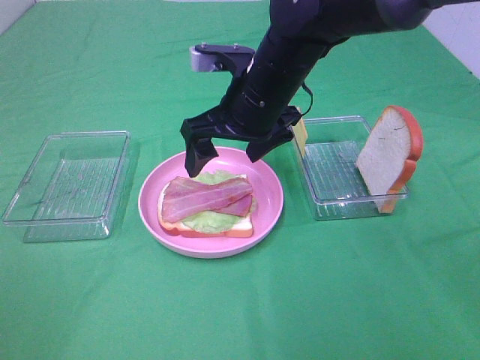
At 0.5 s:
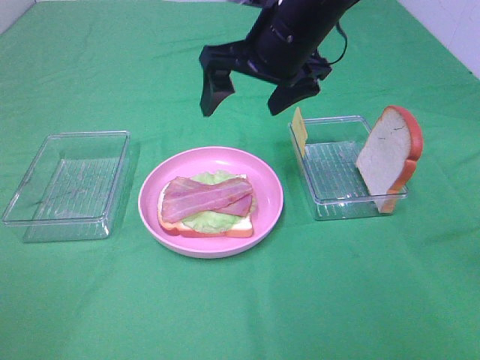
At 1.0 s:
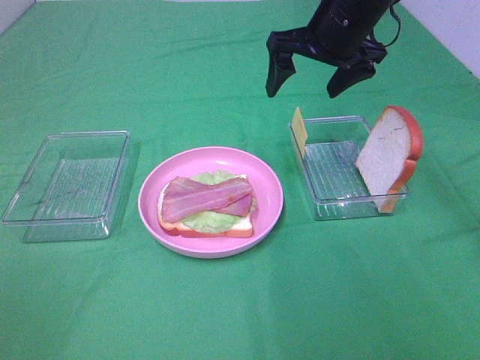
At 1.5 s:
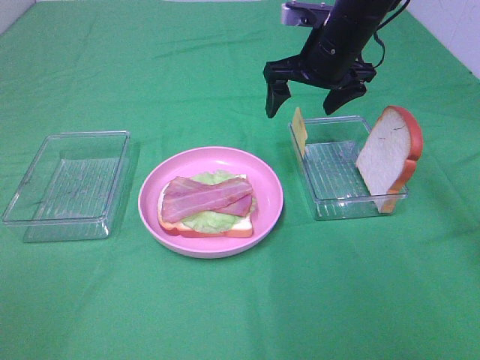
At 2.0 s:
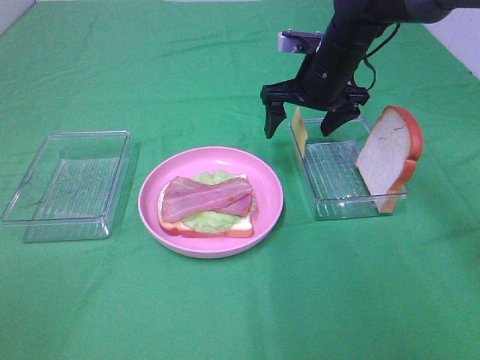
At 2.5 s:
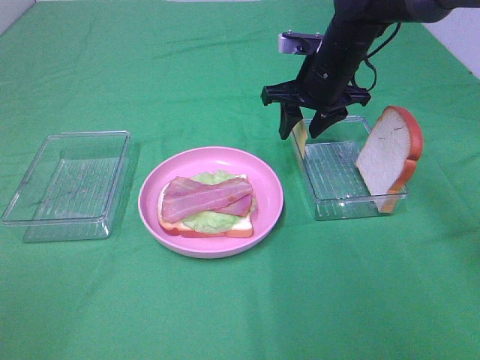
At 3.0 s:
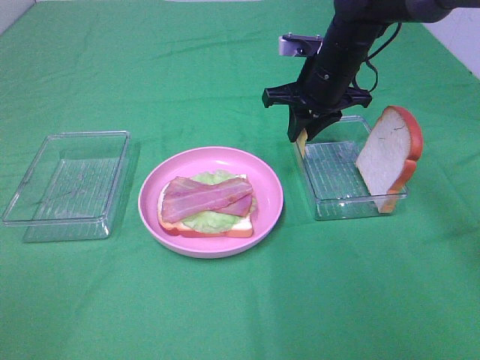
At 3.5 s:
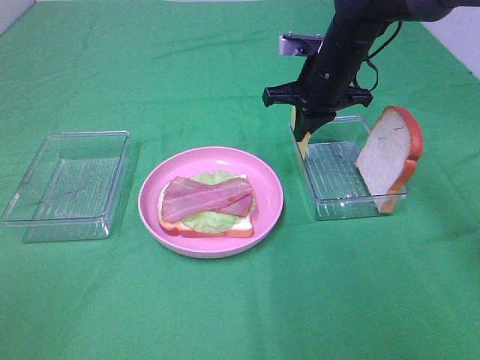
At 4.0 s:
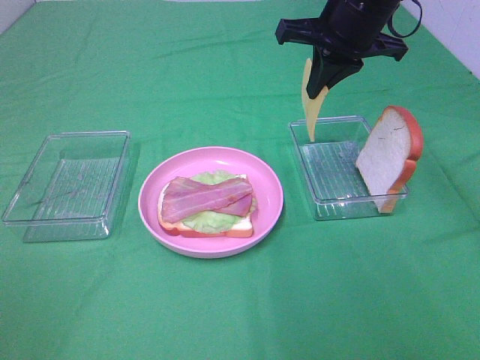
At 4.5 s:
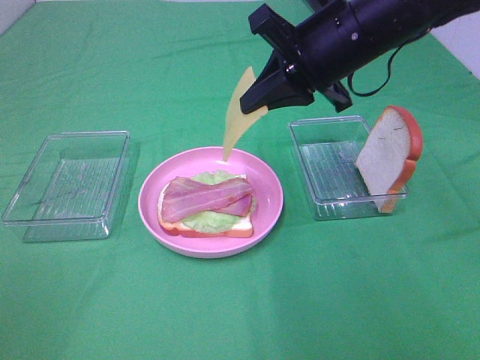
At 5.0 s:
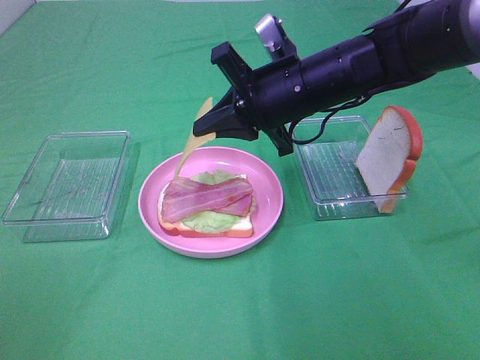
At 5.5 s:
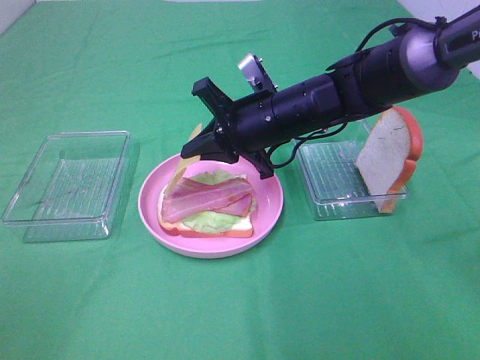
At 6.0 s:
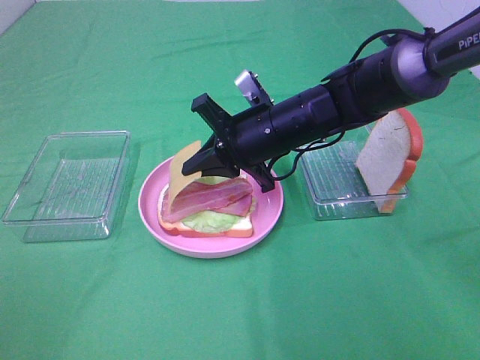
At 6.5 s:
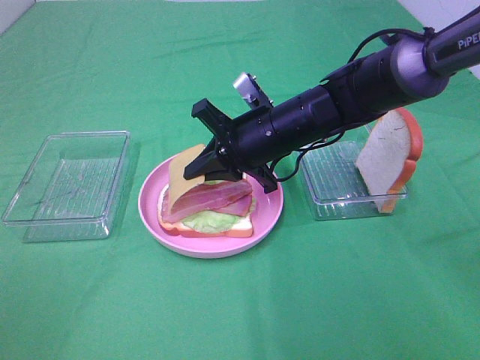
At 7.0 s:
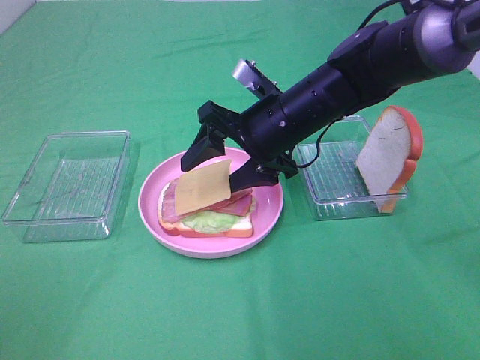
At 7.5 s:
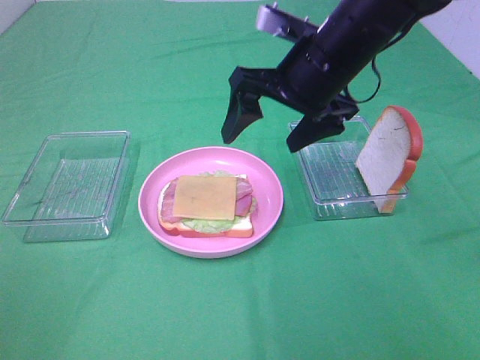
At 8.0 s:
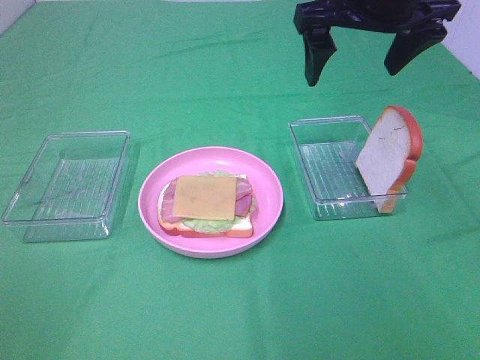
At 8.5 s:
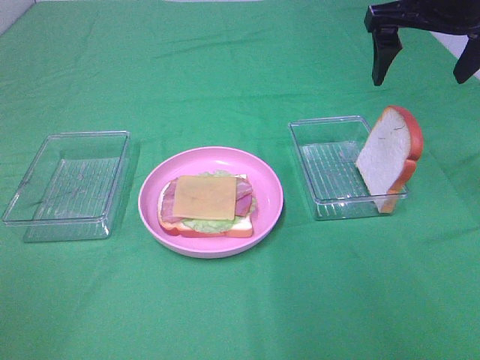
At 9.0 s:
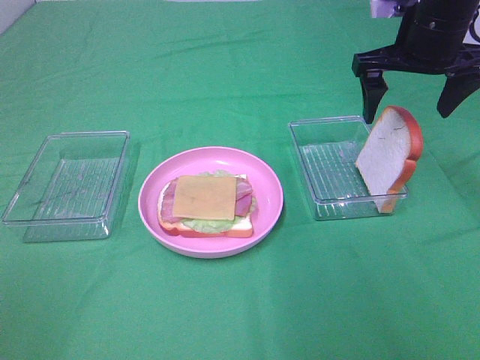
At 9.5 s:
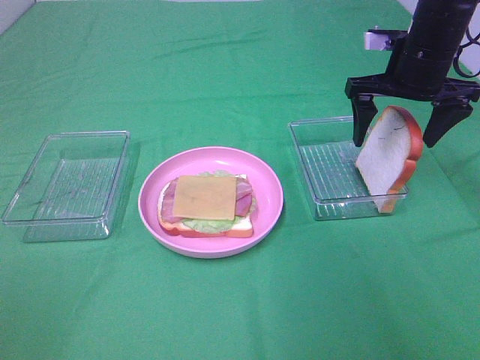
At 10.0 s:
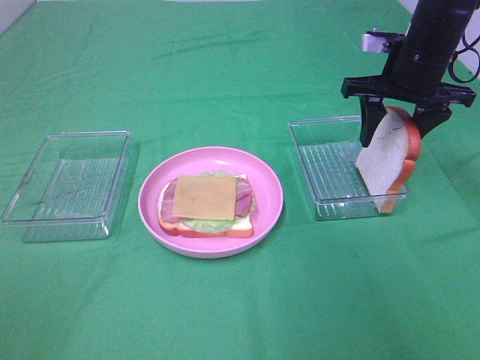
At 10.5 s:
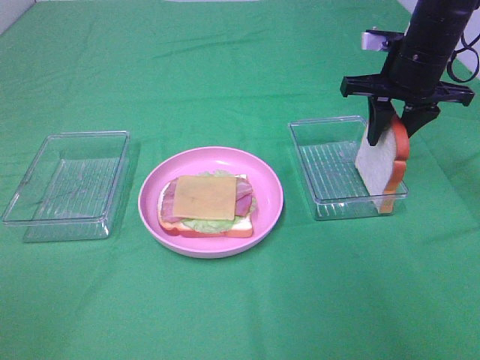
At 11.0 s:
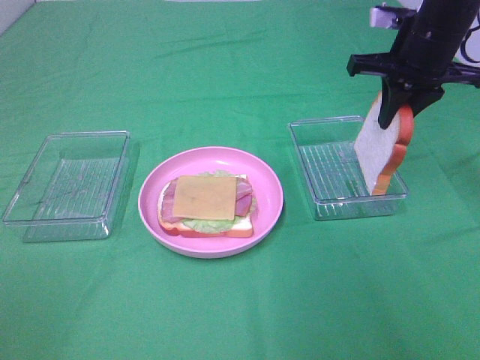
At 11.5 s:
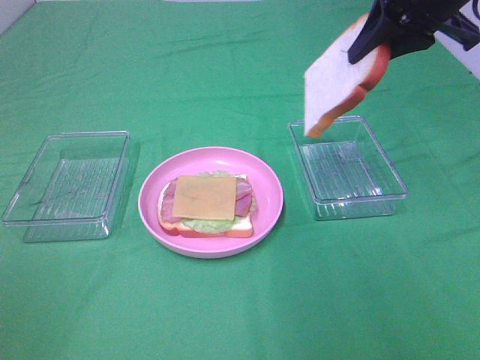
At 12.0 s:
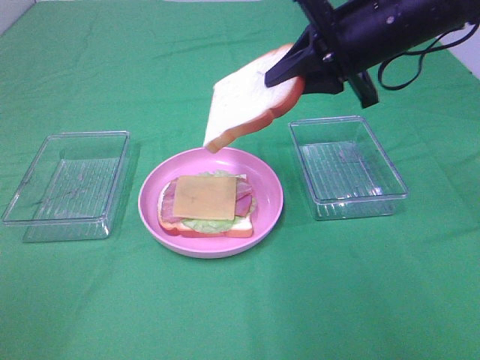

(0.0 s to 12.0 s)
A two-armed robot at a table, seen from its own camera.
Task of the whole recording: Make sandwiches.
Step, 0.5 s - 3.5 s: Right hand:grab the cheese slice.
Step, 4.0 s - 7.0 s: Right hand:place the cheese slice on top of the bacon.
Step, 7.5 s - 10.5 s: Right hand:grab the bread slice.
0.0 s - 2.0 s: The right gripper moves forward and to the right, some 15 cm.
2.0 s - 4.0 s: The right gripper goes approximately 10 cm upward and backward, and closes.
4.0 s - 6.0 s: The right gripper goes about 15 cm downward and to the left.
6.0 s - 8.0 s: The right gripper heads upward and to the right, covering roughly 20 cm, and opens up.
8.0 s - 10.0 s: The right gripper moves downward, to the right and forward, about 15 cm, and closes its fingers.
10.0 s - 12.0 s: The right gripper heads to the left and backward, covering approximately 10 cm, and closes its fingers.

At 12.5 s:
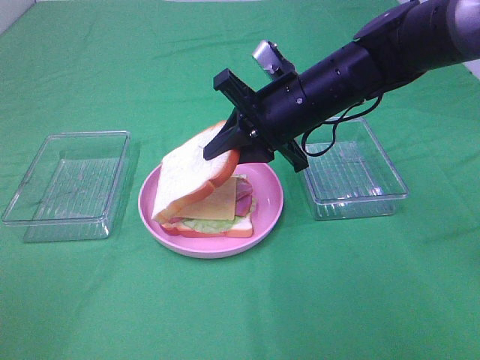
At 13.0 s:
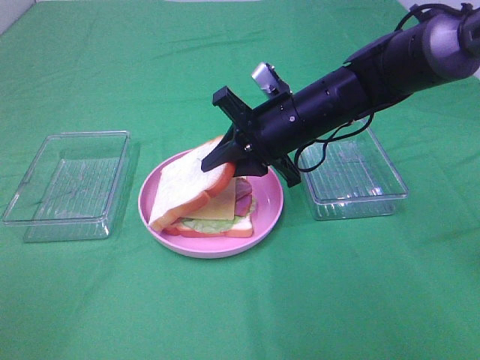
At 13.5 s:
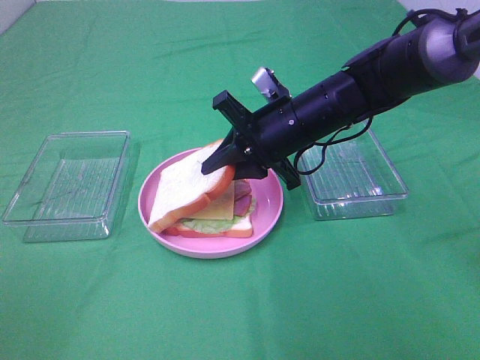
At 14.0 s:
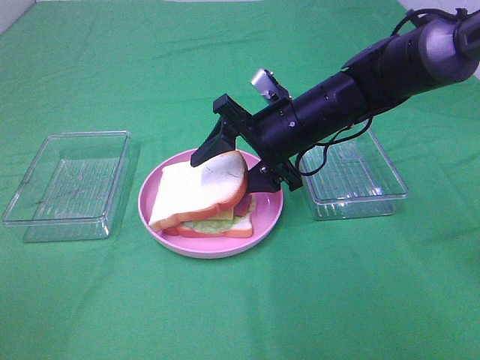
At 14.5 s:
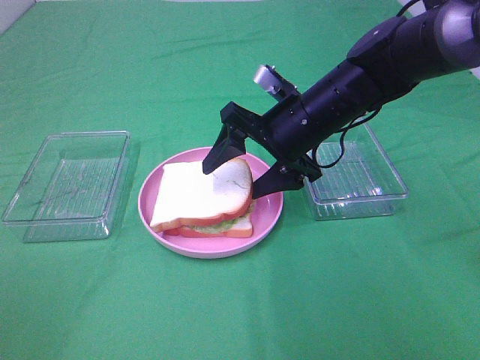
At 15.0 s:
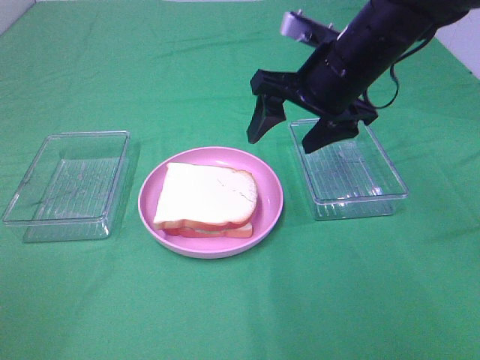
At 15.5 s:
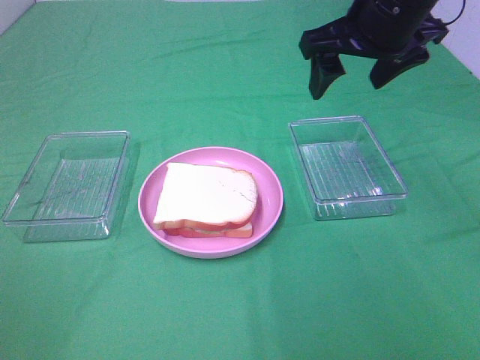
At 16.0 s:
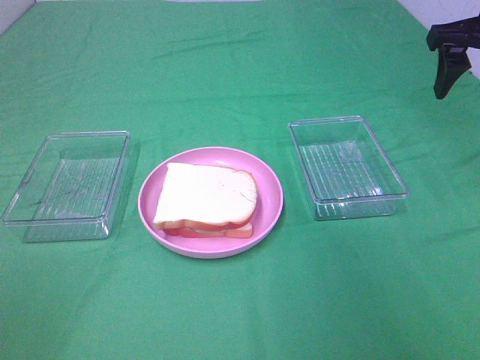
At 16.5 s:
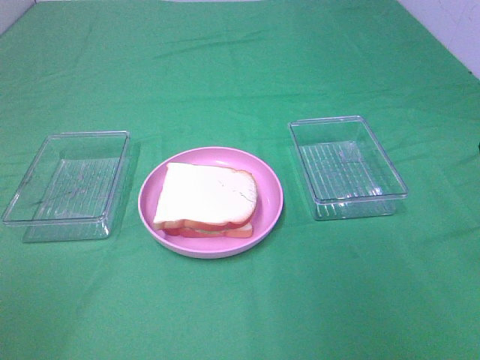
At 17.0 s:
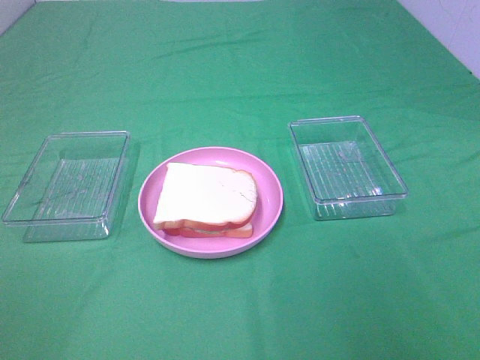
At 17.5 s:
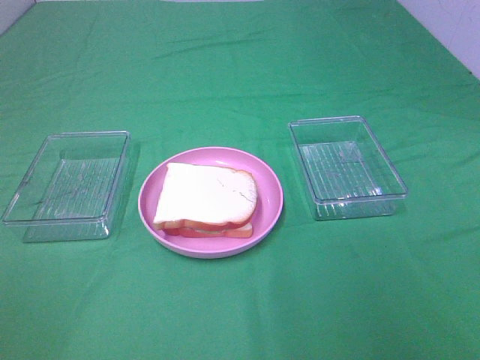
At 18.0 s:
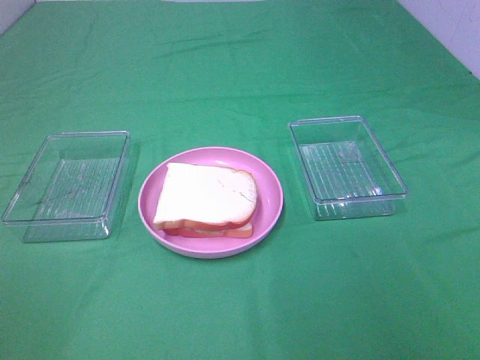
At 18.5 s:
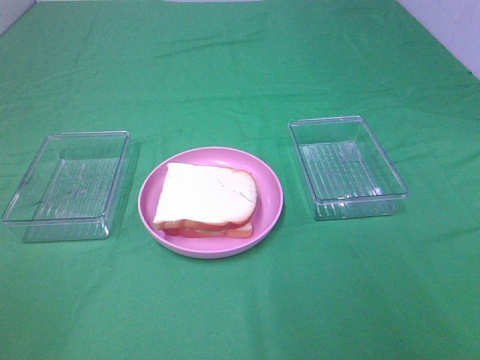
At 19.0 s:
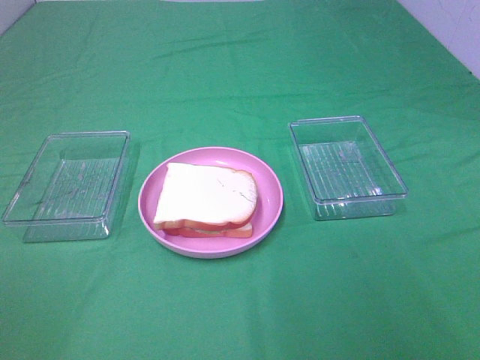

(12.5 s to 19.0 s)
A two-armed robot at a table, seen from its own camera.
Task of the whole recording: Make sandwiches.
Step, 12.5 s - 14.5 s: Right hand:place the bread slice on the cheese slice.
12.5 s - 14.5 s: The right gripper opens up.
14.5 s - 17.0 s: The right gripper is displaced backward, to the right and upward by roughly 35 cm.
